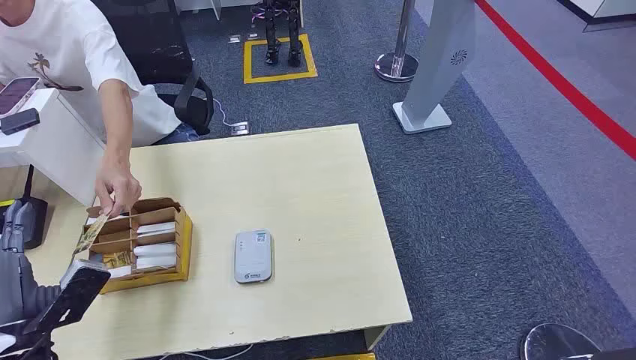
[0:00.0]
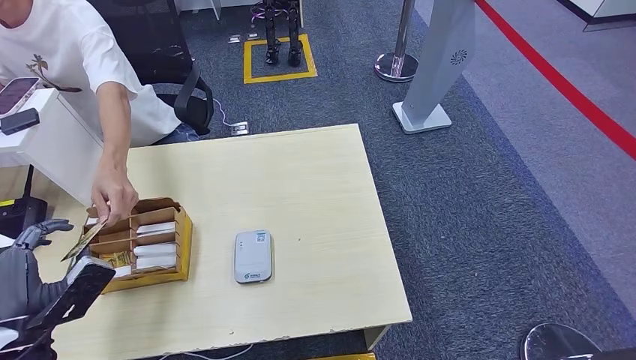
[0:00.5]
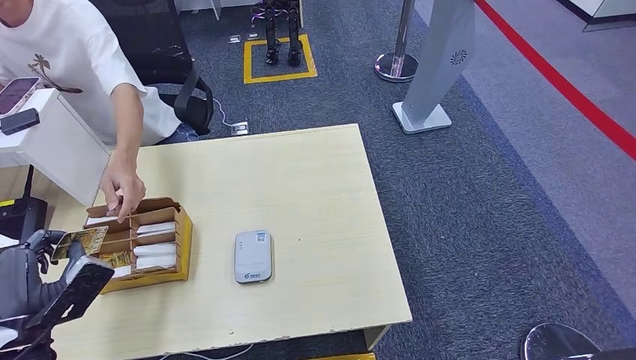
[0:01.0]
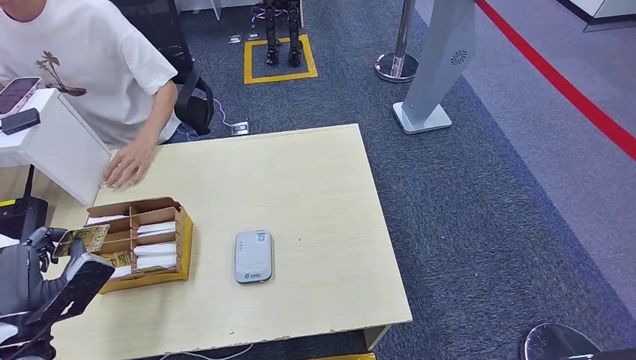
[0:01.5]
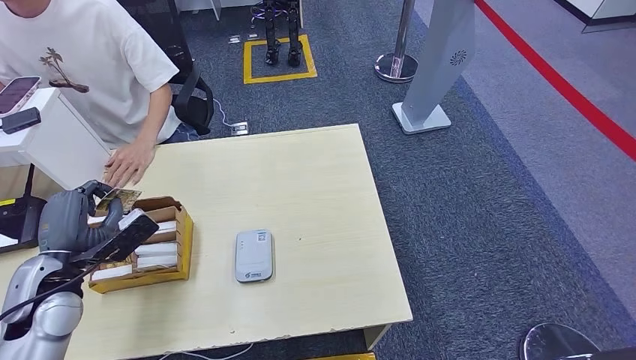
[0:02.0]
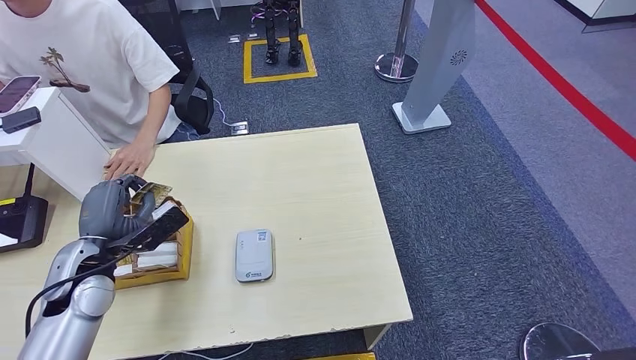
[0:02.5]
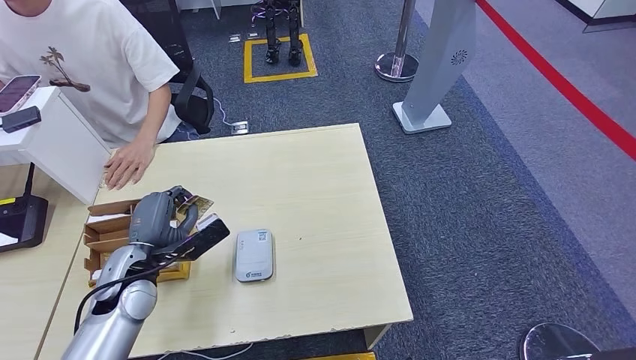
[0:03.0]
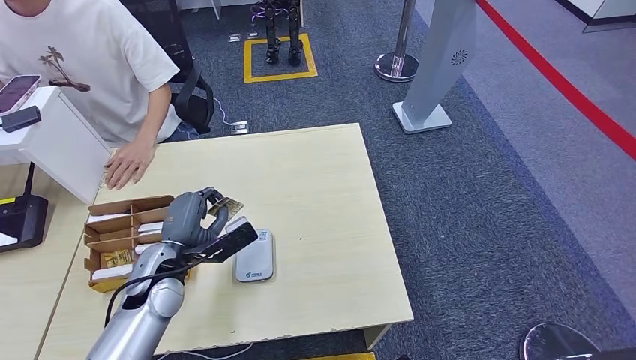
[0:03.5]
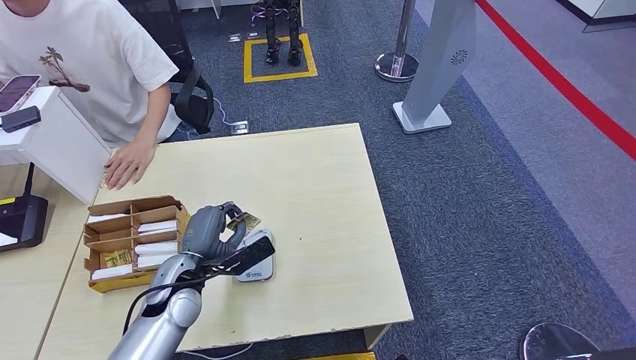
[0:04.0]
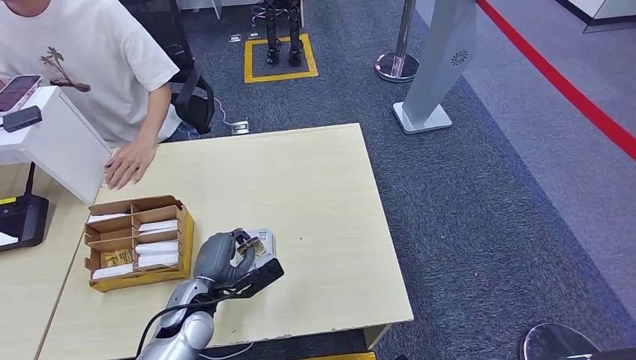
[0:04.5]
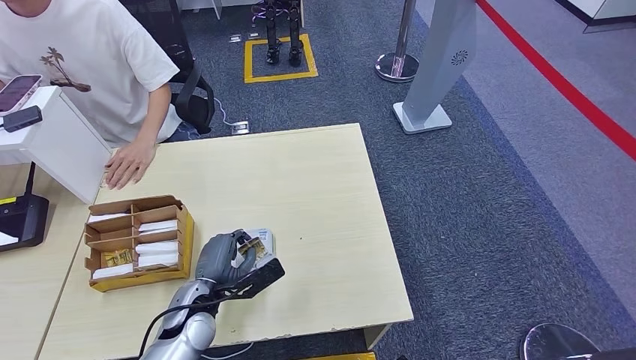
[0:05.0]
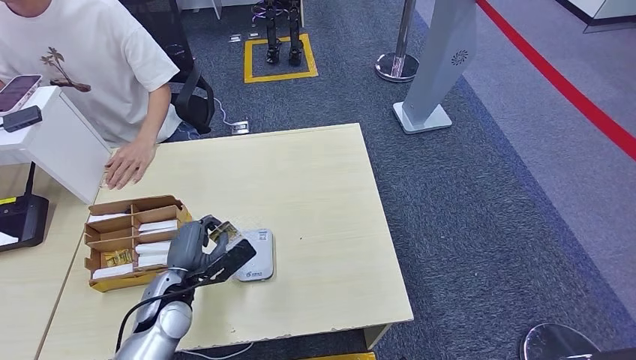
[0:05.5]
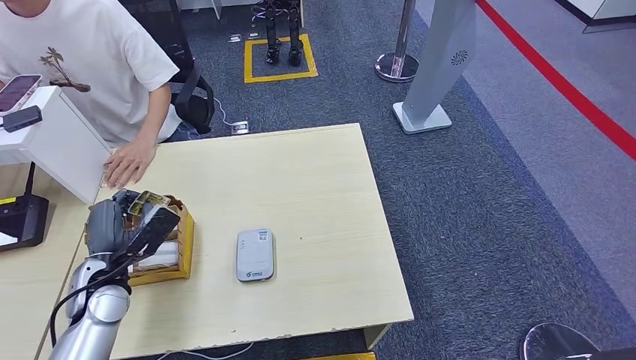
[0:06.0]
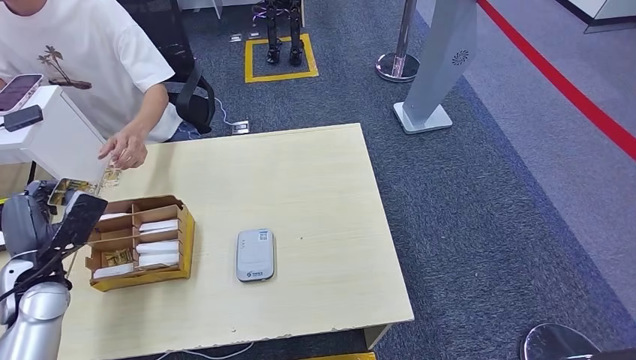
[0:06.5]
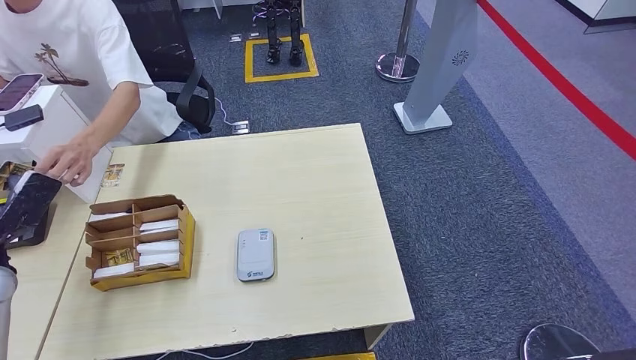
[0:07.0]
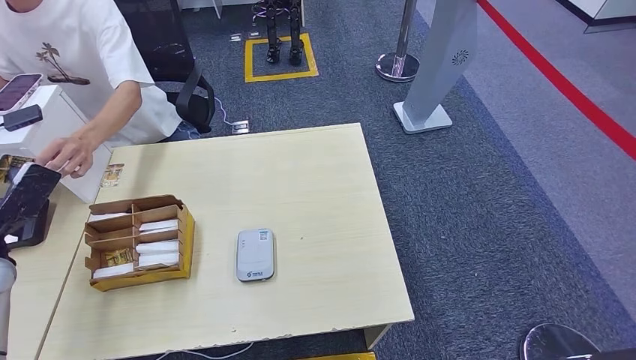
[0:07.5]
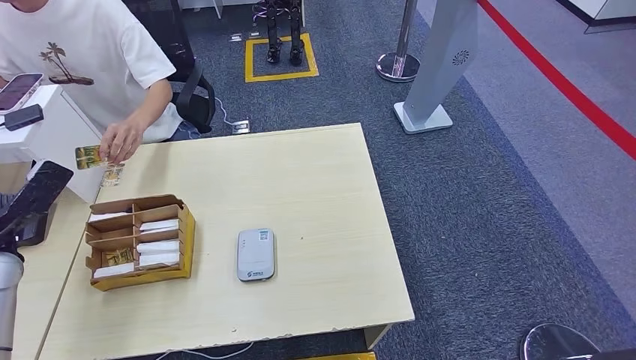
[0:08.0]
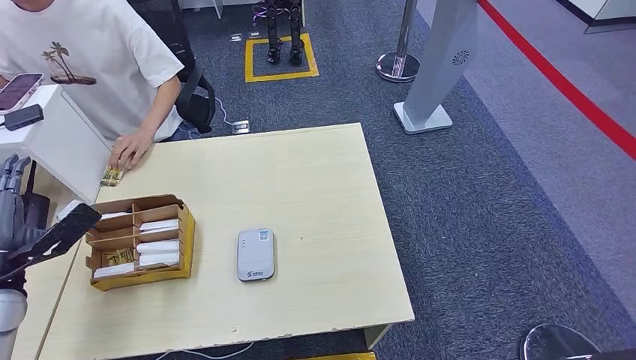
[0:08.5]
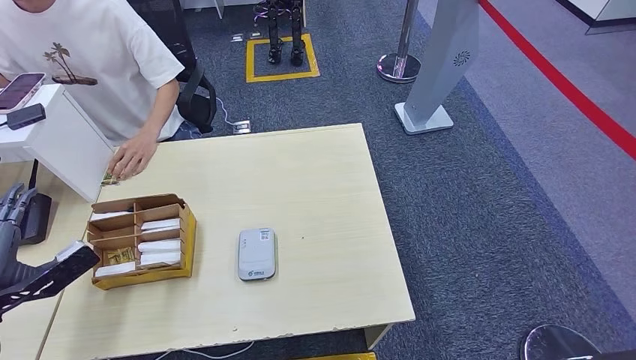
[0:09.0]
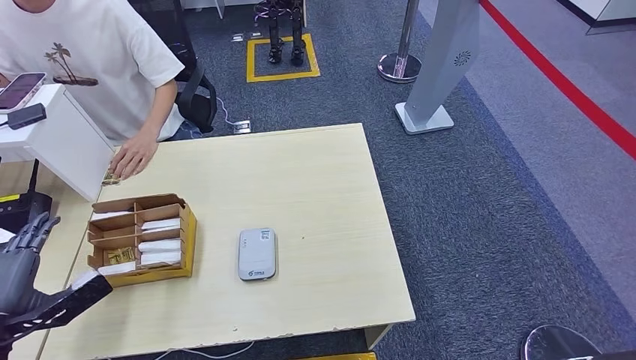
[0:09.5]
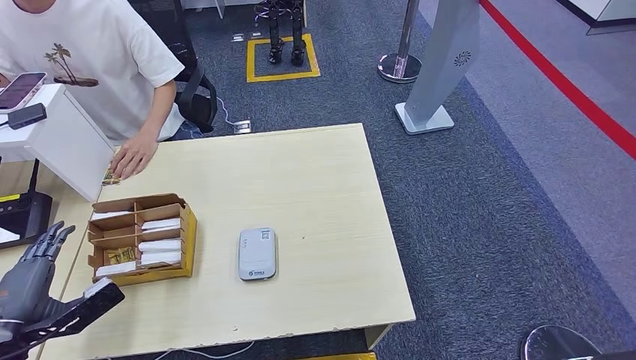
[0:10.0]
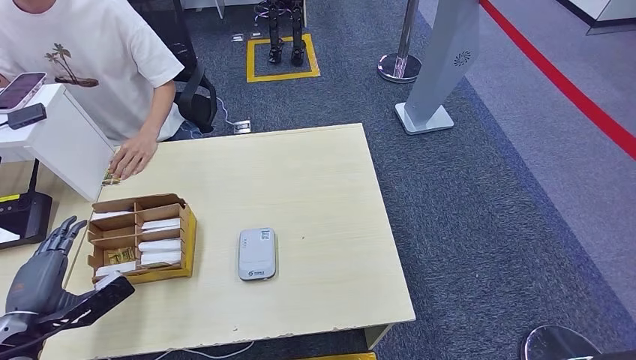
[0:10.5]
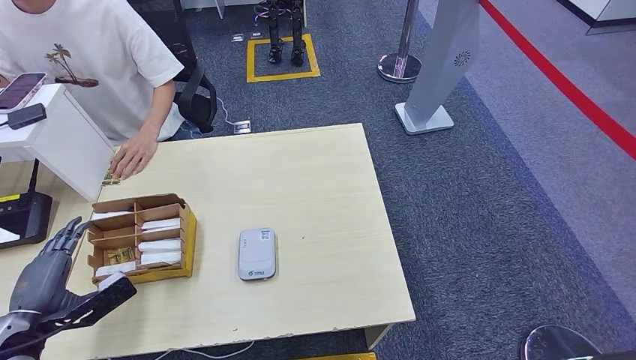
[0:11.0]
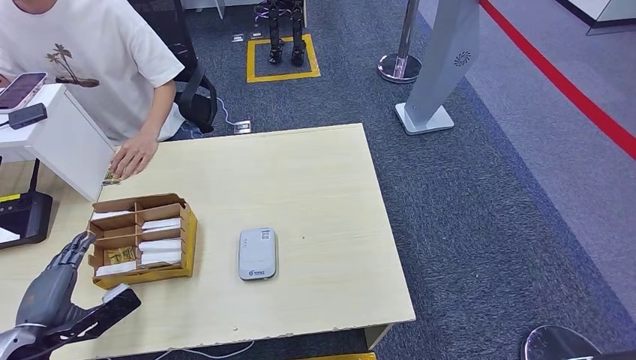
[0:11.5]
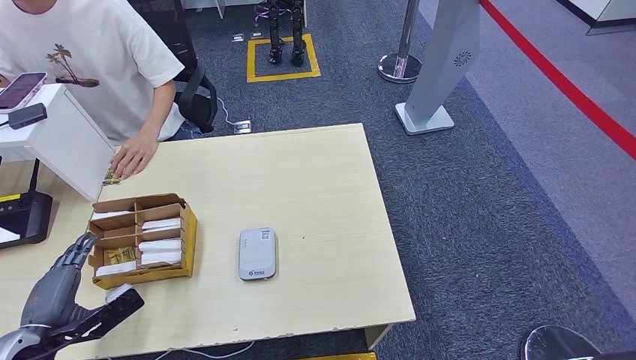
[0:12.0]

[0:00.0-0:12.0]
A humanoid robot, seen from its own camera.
Step, 0:00.0 to 0:00.5: Take the ID card from the person's hand.
Step, 0:01.0 to 0:05.0: Place the ID card on the card reader.
Step, 0:05.5 to 0:08.0: Hand the ID card to the person.
0:02.0 to 0:04.0: The left hand is displaced to the right and downward by some 20 cm.
0:04.0 to 0:06.0: The left hand moves to the left, roughly 15 cm.
0:06.0 to 0:08.0: The left hand is displaced to the left and upward by some 15 cm.
0:08.0 to 0:10.0: The left hand heads backward and downward, covering roughly 15 cm.
0:10.0 to 0:12.0: There are only small adjustments of the hands.

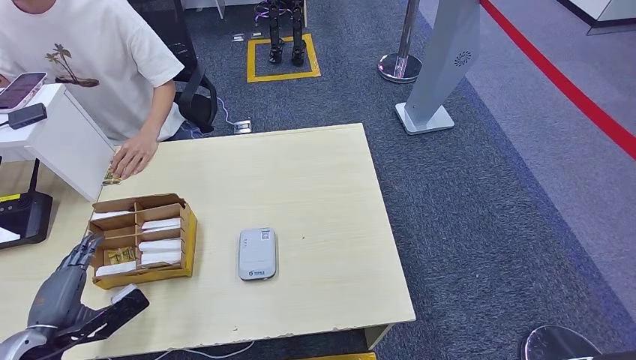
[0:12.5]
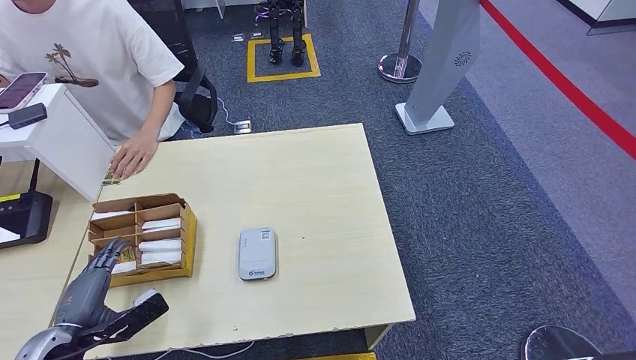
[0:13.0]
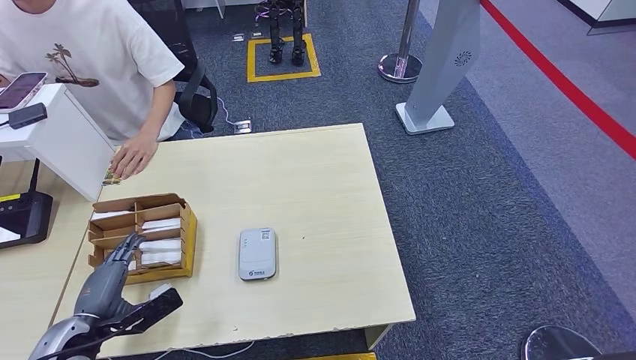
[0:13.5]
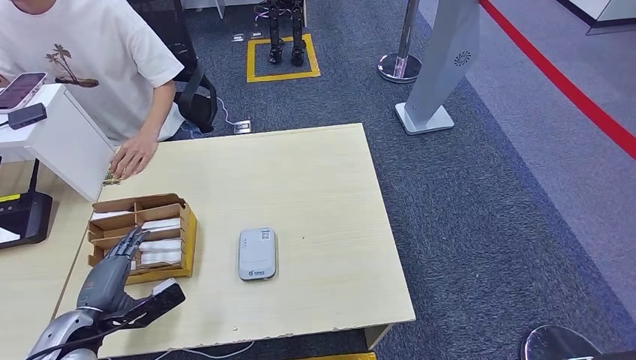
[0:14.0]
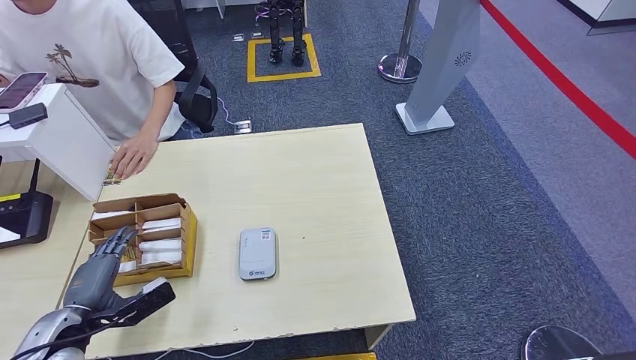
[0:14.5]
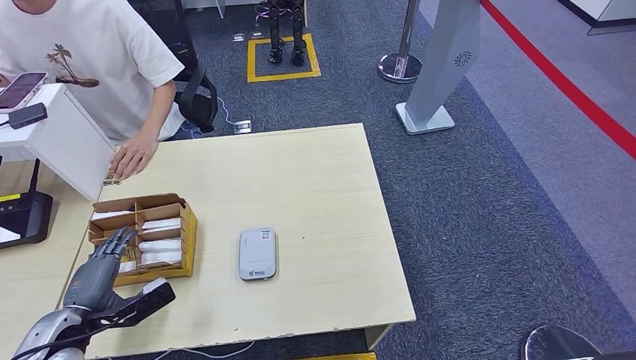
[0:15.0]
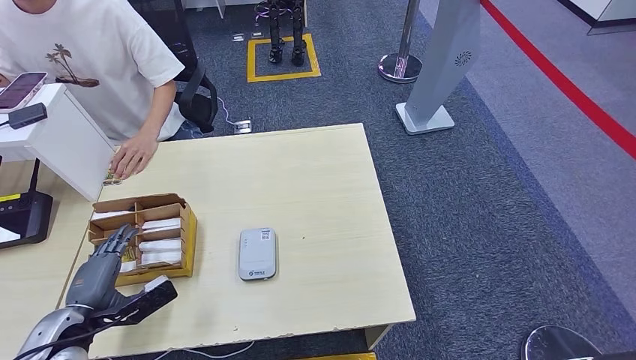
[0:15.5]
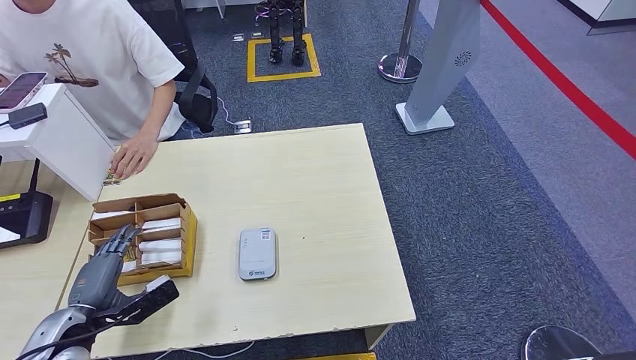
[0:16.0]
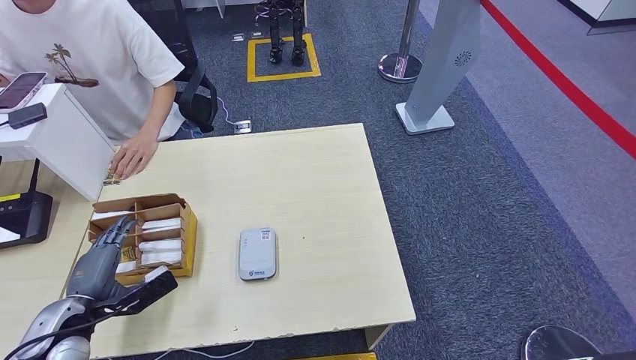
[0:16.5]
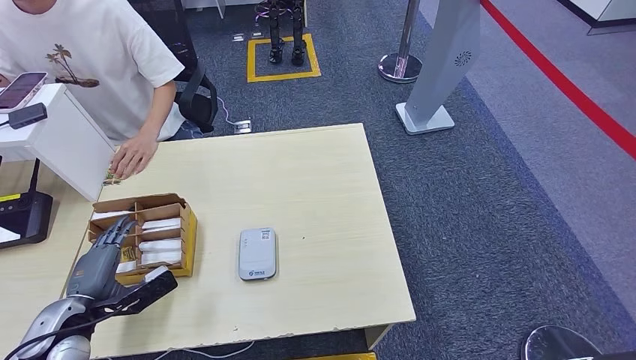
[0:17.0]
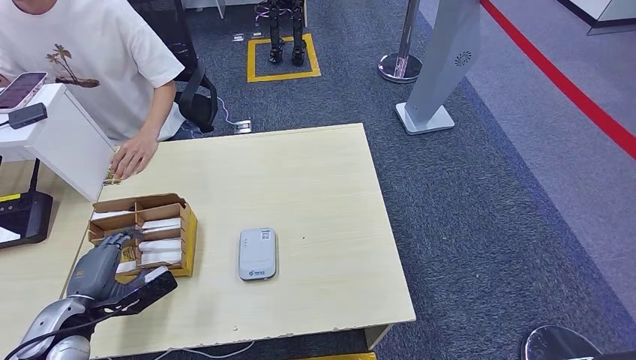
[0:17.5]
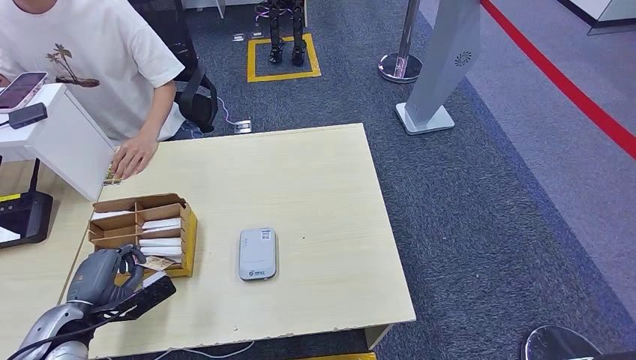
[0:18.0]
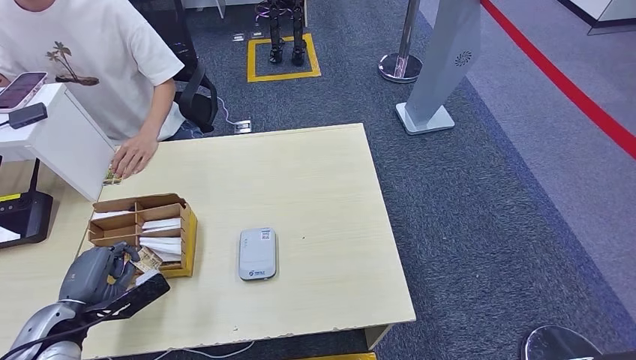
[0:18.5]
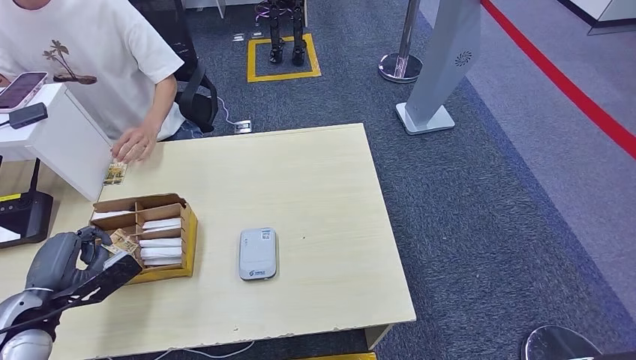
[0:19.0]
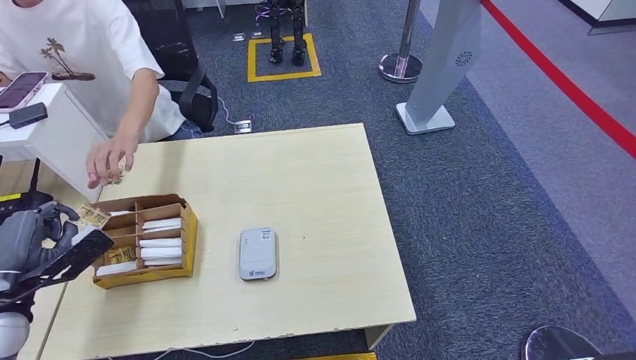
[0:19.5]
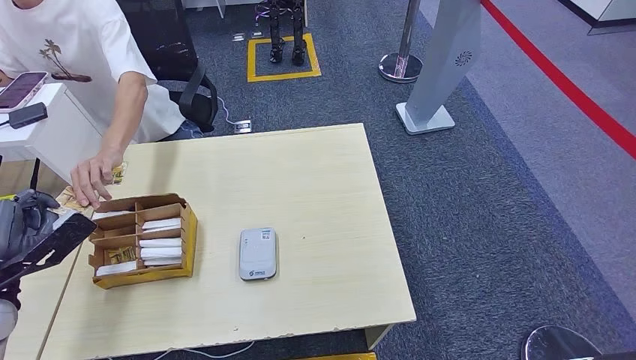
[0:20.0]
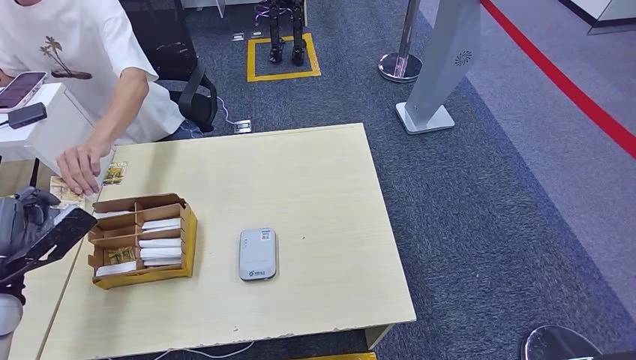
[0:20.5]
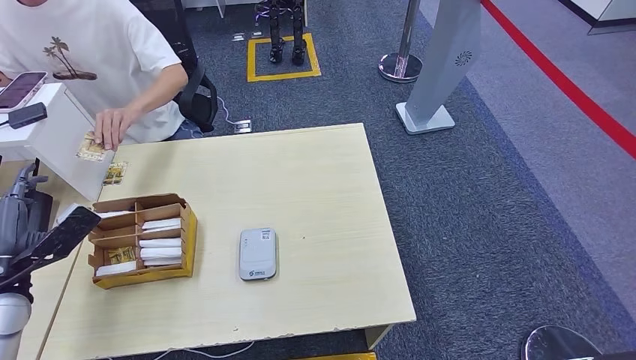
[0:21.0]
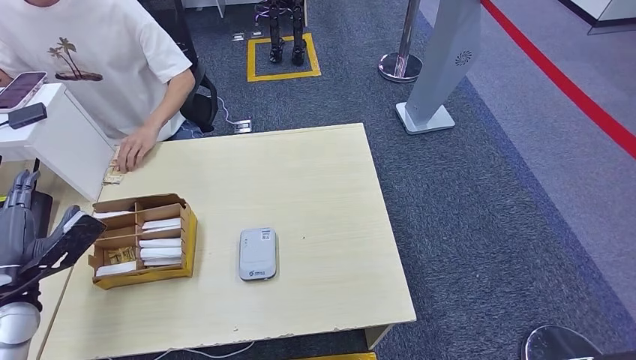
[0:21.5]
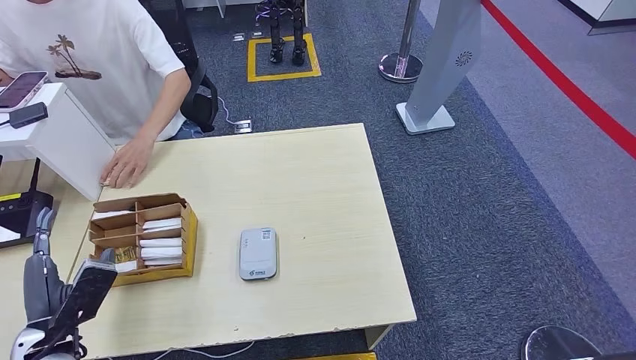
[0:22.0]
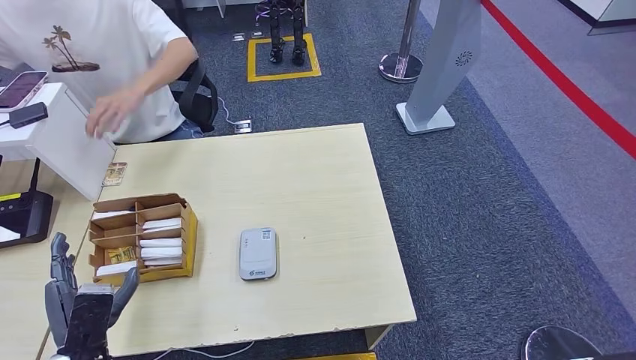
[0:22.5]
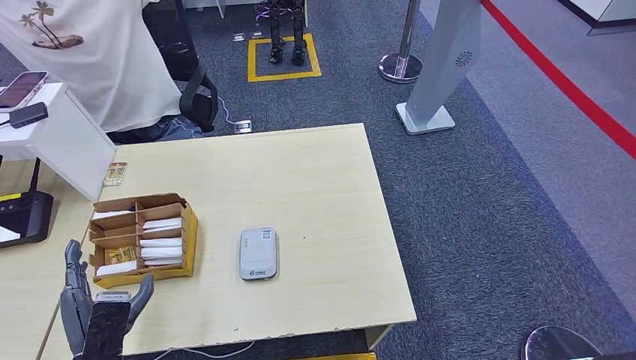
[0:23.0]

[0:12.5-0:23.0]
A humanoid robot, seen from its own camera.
Step, 0:12.5 to 0:19.5: Pick up the room key from the key card box.
Step, 0:20.0 to 0:23.0: Hand the room key to the person.
0:12.5 to 0:16.5: There are only small adjustments of the hands.
0:16.5 to 0:19.0: The left hand ends up about 5 cm from where it was.
0:19.0 to 0:21.0: The left hand moves some 5 cm.
0:21.0 to 0:23.0: The left hand travels to the right, backward and downward by roughly 20 cm.
